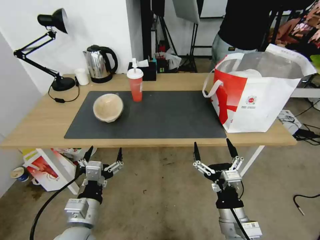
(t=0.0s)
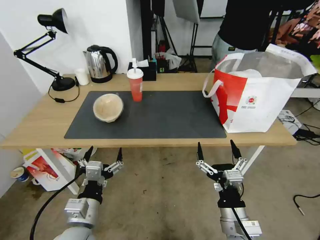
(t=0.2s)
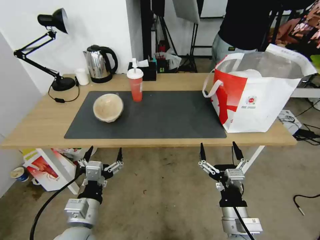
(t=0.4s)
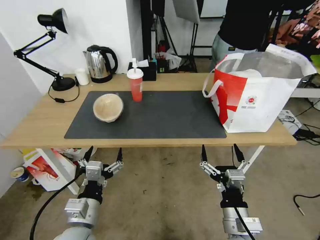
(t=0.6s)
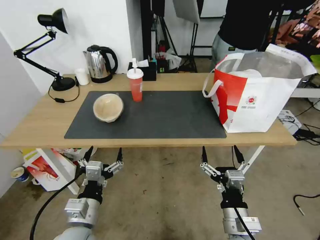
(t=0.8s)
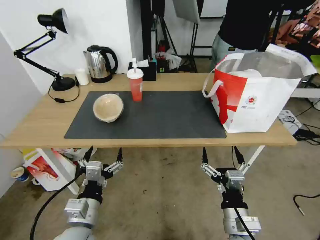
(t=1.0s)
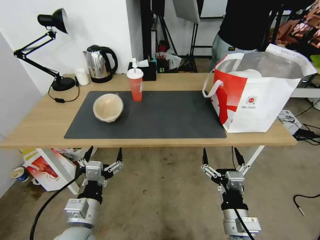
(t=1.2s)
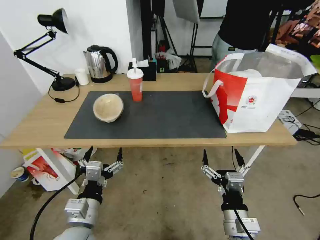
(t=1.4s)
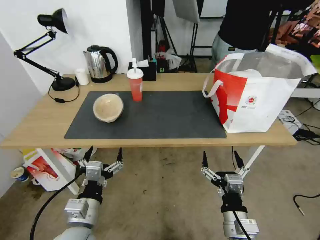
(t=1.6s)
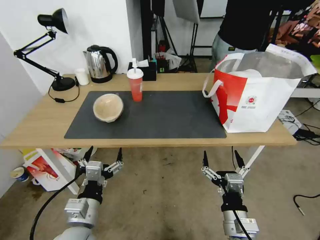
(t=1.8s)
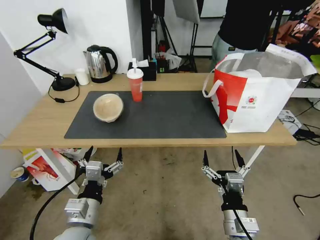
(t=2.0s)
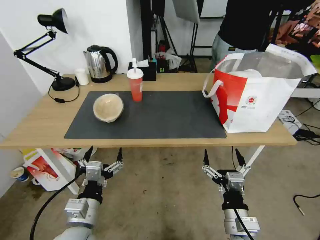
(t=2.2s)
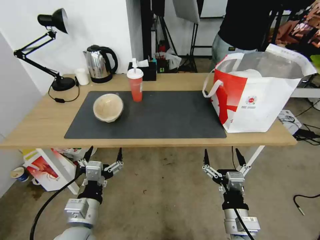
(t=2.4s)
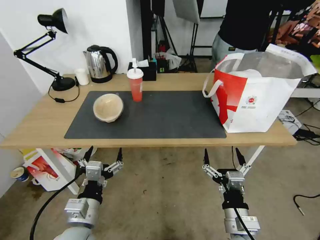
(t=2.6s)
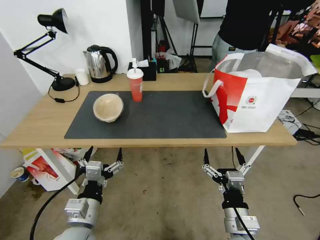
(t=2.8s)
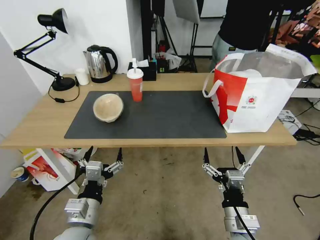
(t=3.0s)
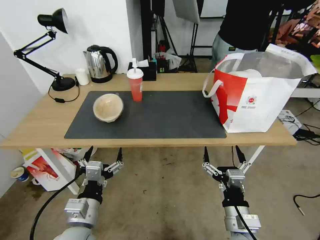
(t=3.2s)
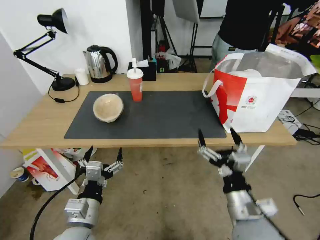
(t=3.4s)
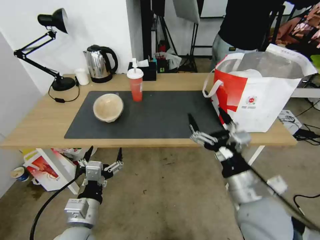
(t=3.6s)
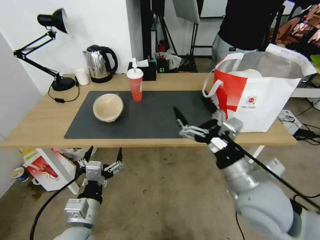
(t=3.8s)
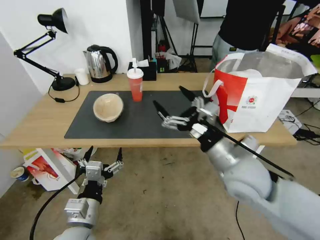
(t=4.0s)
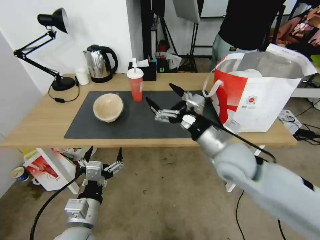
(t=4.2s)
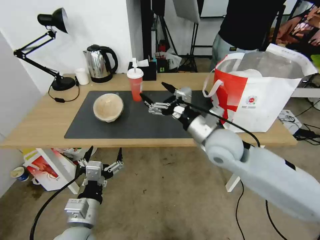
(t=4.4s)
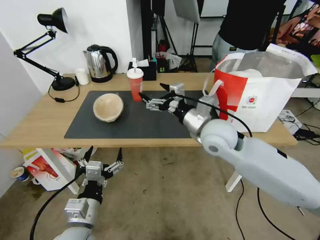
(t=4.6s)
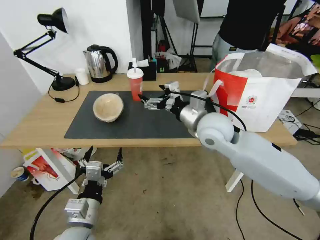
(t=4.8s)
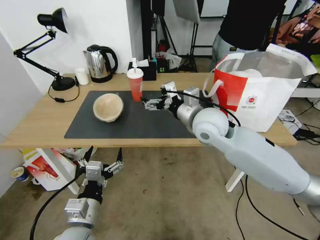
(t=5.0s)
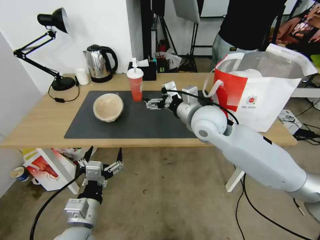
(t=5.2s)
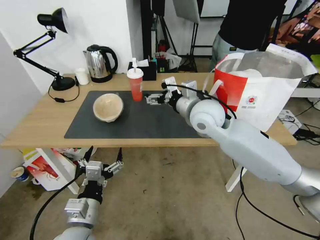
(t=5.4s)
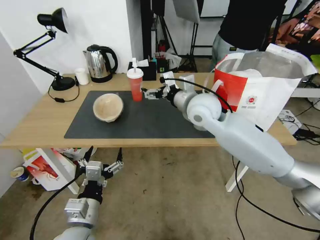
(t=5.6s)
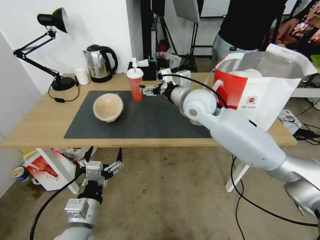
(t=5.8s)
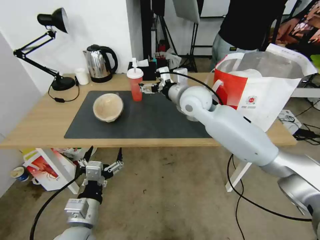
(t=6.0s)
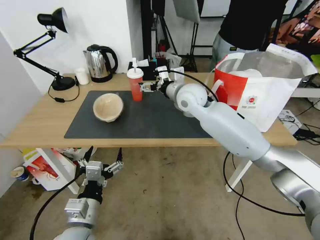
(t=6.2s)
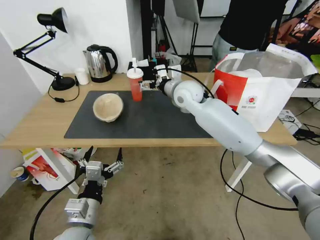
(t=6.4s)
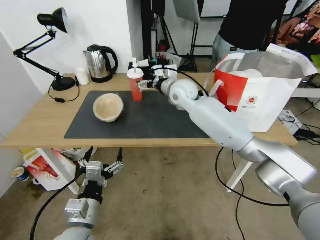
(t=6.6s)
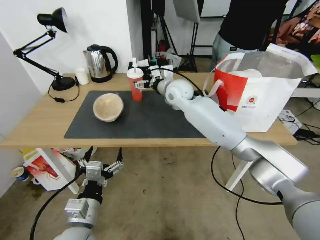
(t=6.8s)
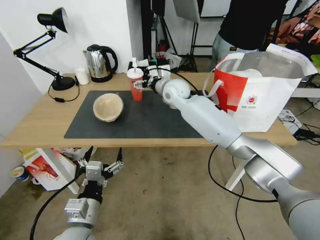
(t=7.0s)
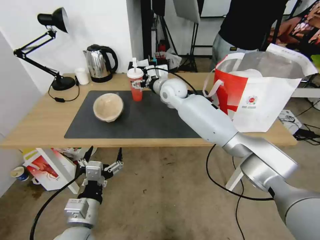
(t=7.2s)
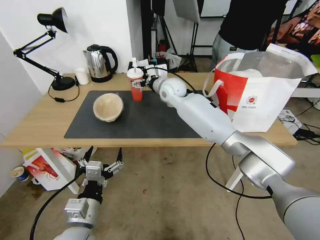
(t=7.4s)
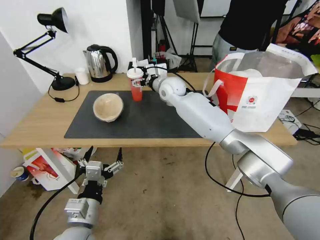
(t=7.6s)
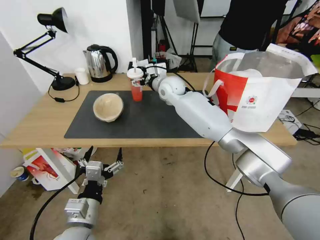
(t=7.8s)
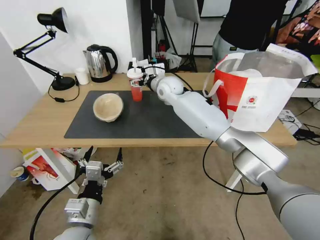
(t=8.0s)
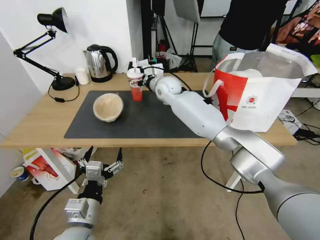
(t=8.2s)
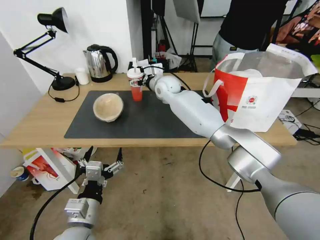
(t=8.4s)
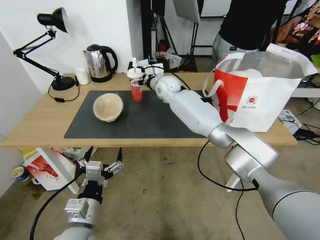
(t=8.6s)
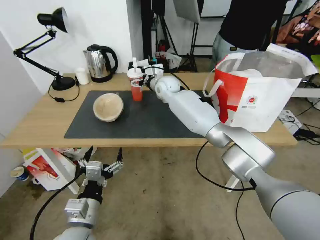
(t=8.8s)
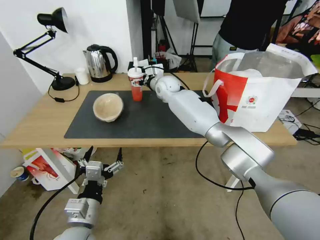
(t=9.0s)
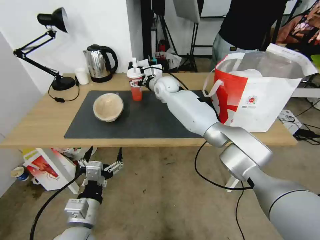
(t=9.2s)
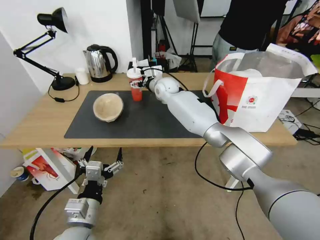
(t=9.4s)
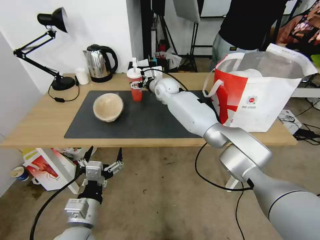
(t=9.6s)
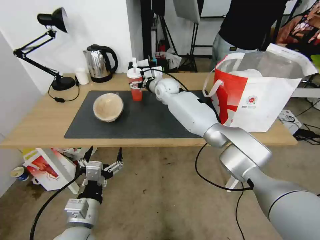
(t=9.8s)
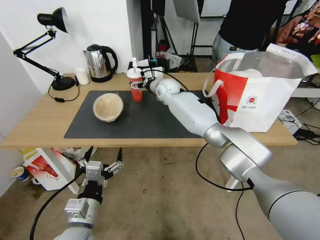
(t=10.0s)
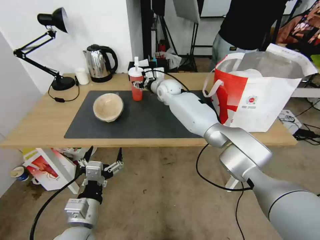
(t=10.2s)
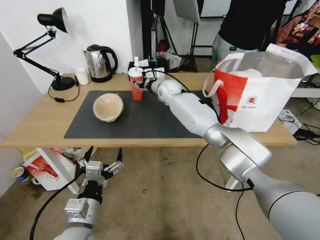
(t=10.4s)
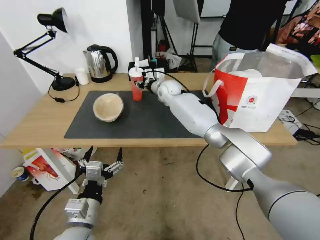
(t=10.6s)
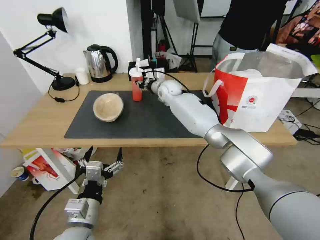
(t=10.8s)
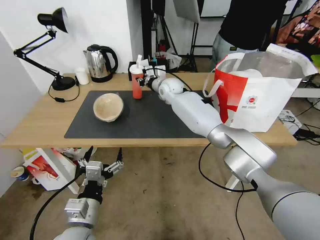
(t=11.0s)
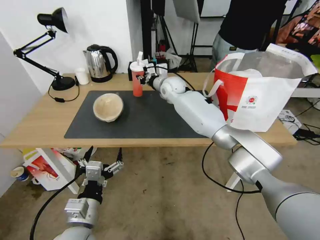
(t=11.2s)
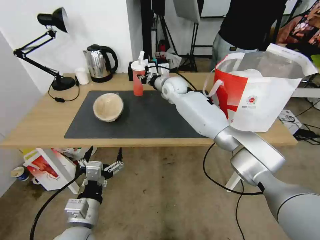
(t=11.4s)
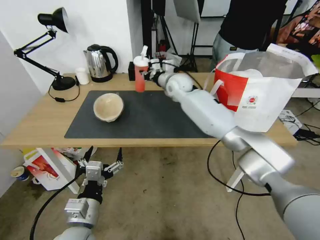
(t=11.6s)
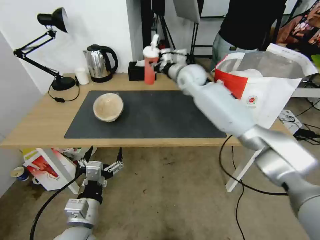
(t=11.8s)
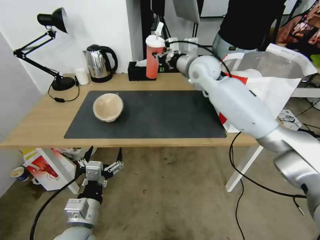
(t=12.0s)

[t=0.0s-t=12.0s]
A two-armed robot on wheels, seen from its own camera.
Task of the whole recording: Pick up the trash from the table and place it into the takeout bag.
t=0.0s to t=1.6s: The grippers stay close to where they were, moving slightly.
t=1.6s to t=3.0s: Both grippers stay about where they are.
t=3.0s to t=4.4s: The right gripper is displaced forward and upward by approximately 25 cm.
t=4.4s to t=6.0s: The right gripper heads forward, to the left and upward, covering about 15 cm.
t=6.0s to t=7.6s: The right gripper goes some 10 cm forward and to the left.
t=7.6s to t=9.0s: The right gripper shifts by roughly 5 cm.
t=9.0s to t=10.4s: The right gripper closes its fingers.
t=10.4s to t=12.0s: The right gripper shifts roughly 15 cm upward, to the right and backward.

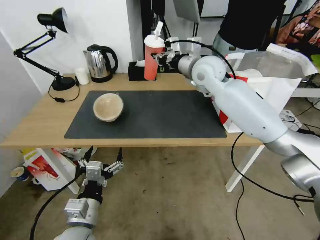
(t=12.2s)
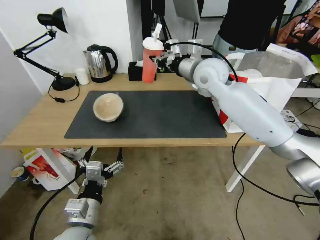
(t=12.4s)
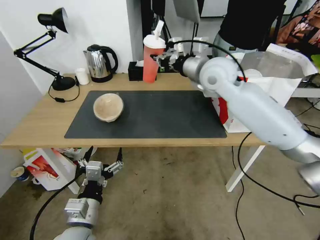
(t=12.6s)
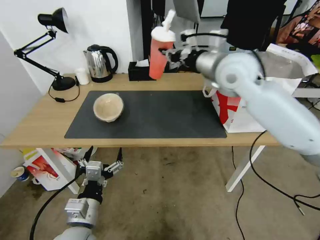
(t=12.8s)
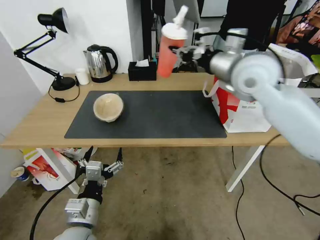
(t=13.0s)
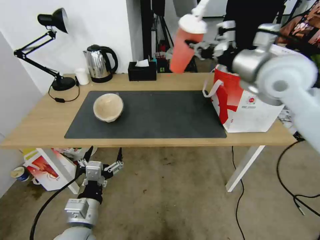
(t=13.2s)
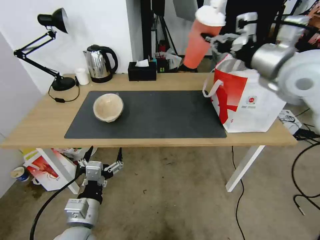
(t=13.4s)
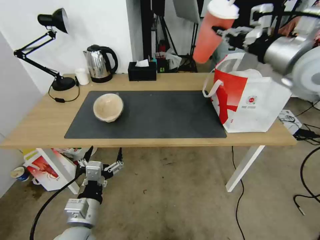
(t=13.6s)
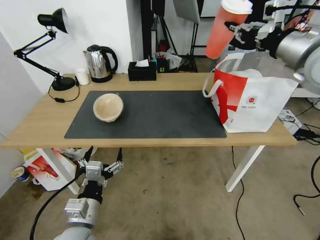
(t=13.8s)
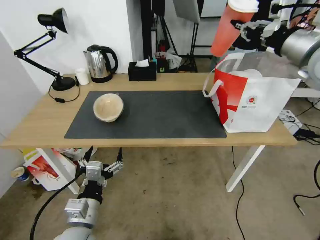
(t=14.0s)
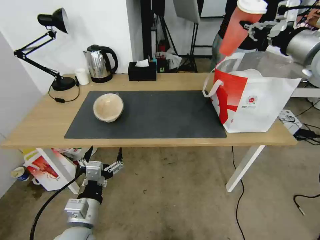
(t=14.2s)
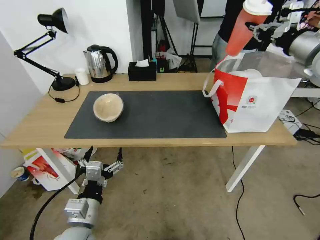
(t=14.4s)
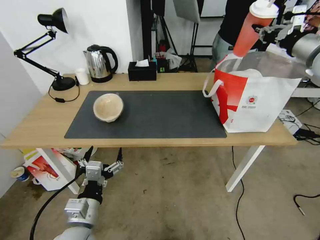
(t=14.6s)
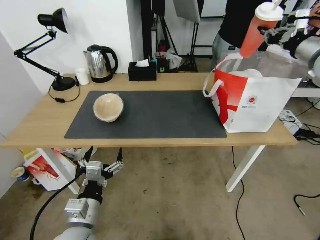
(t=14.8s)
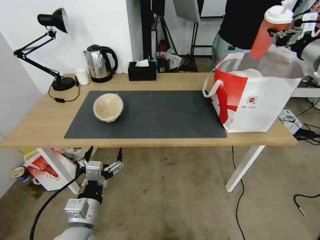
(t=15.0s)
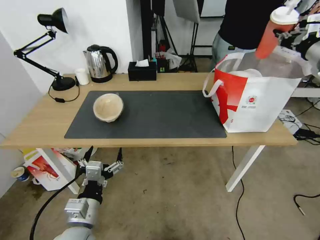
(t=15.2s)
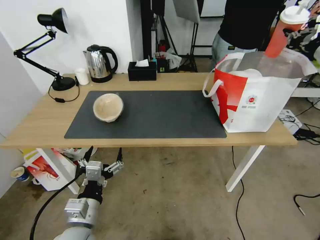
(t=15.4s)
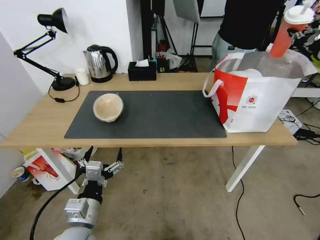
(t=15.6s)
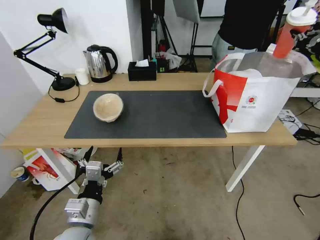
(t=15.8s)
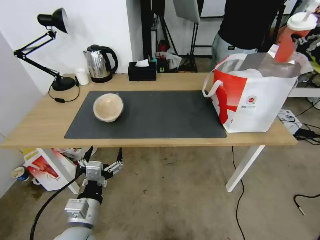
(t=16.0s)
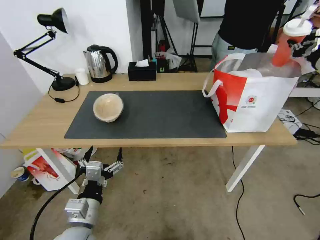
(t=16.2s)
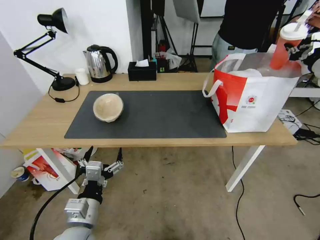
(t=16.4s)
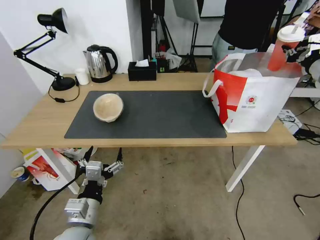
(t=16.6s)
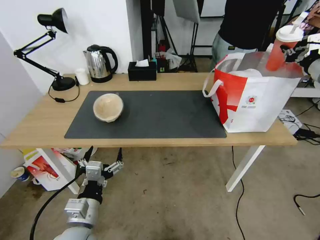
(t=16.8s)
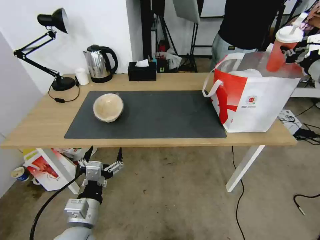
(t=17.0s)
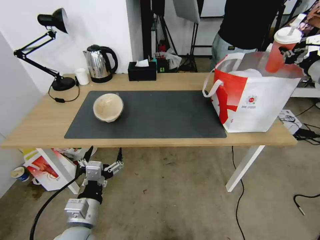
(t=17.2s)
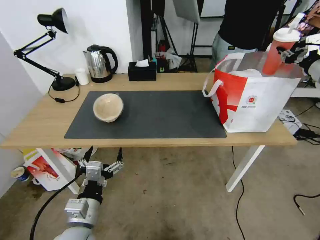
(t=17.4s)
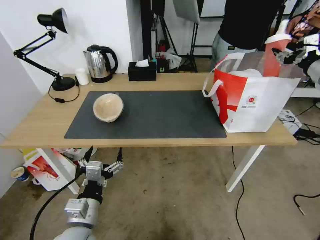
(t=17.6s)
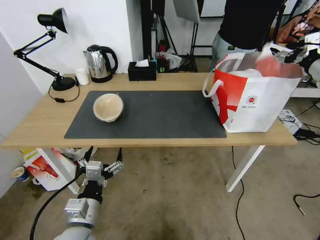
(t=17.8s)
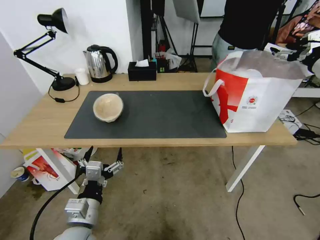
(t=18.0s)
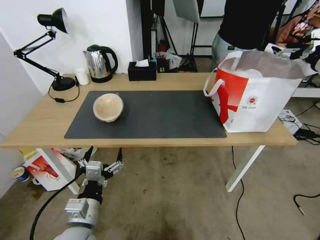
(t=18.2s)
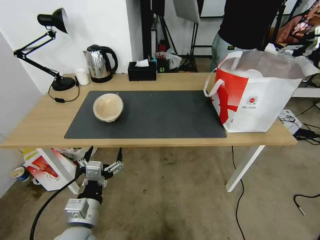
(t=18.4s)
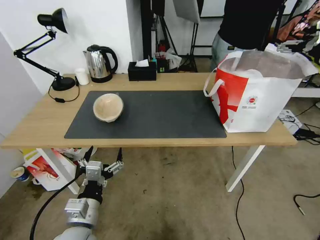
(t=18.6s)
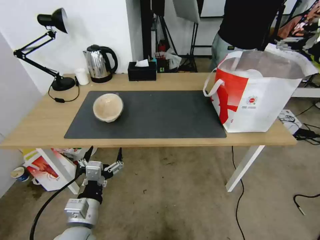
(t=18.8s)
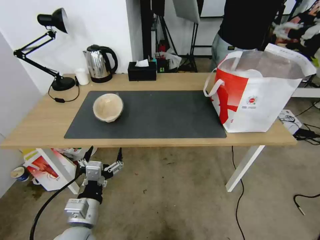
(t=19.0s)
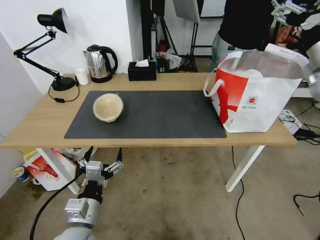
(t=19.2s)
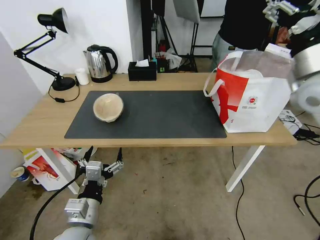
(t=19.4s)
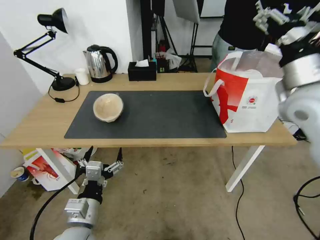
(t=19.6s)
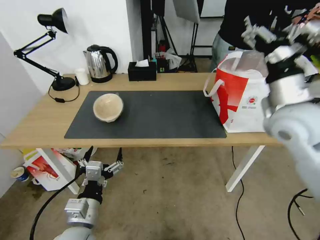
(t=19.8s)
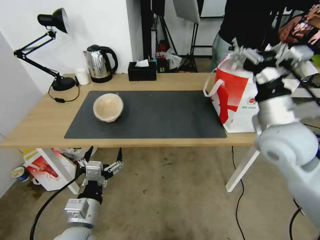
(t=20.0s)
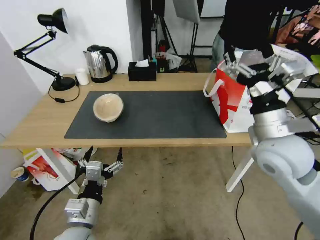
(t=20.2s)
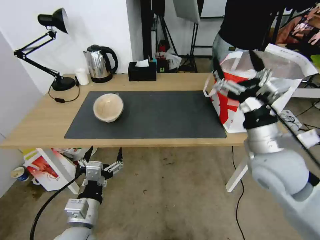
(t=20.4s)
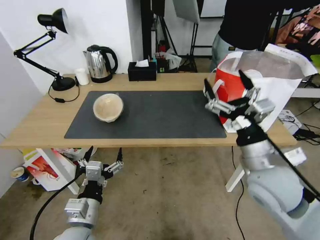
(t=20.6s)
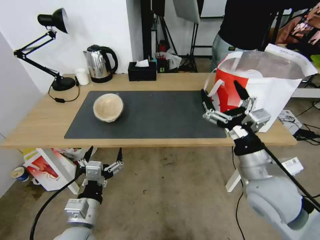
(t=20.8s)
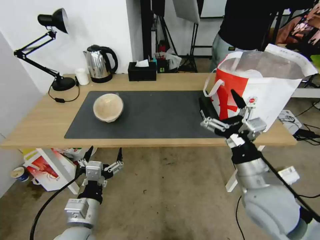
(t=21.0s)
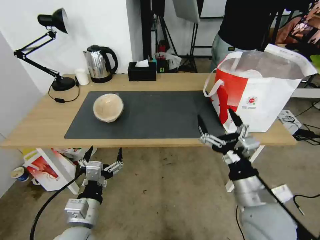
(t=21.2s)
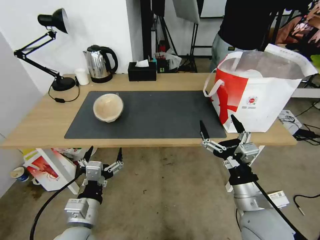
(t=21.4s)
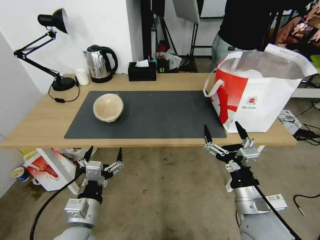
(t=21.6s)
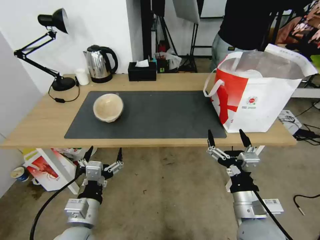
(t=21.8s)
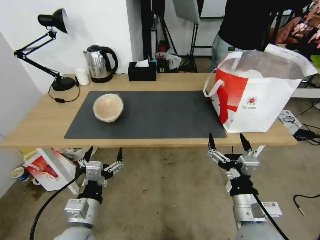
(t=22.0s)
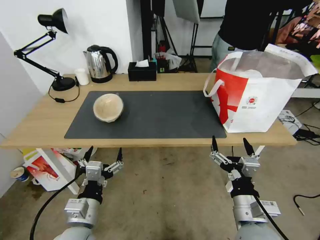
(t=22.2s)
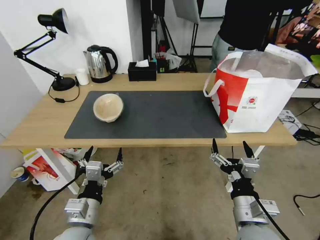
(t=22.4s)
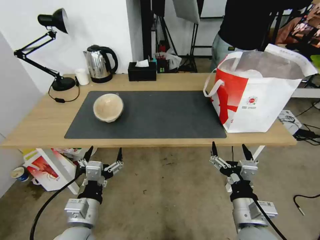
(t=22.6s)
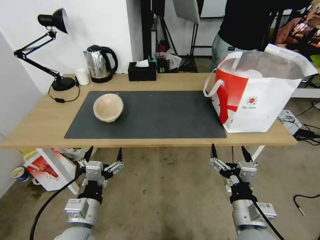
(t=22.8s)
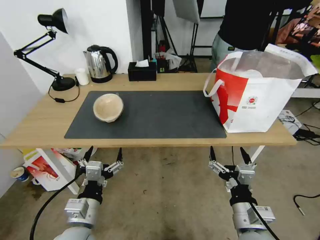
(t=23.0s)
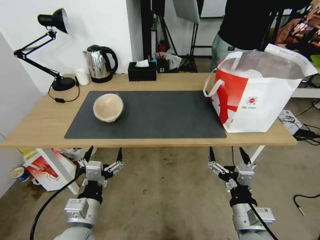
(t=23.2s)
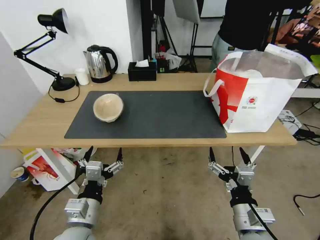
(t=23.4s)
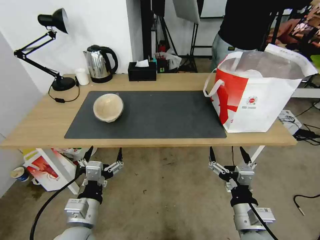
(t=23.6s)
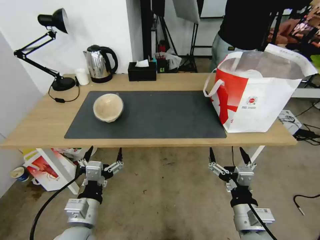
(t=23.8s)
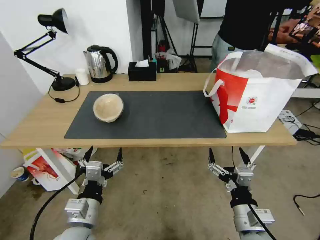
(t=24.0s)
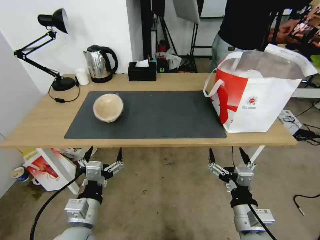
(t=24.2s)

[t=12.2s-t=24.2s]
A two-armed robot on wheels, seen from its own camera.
Task of the whole recording: Pick up the trash from the table and place it into the takeout bag.
t=12.2s to t=13.8s: The right gripper heads to the right, backward and upward, covering roughly 25 cm.
t=13.8s to t=15.2s: The right gripper travels to the right and forward by roughly 15 cm.
t=15.2s to t=16.6s: The right gripper shifts by approximately 5 cm.
t=16.6s to t=18.2s: The right gripper opens up.
t=18.2s to t=19.8s: The right gripper heads to the left and backward, covering approximately 25 cm.
t=19.8s to t=21.2s: The right gripper travels downward and backward by some 20 cm.
t=21.2s to t=22.6s: The right gripper moves downward, approximately 5 cm.
t=22.6s to t=24.2s: The grippers move only a little.
